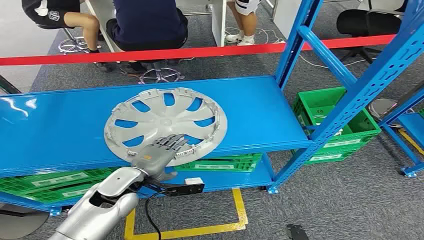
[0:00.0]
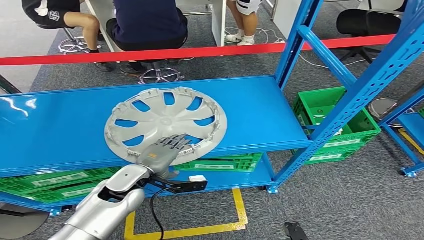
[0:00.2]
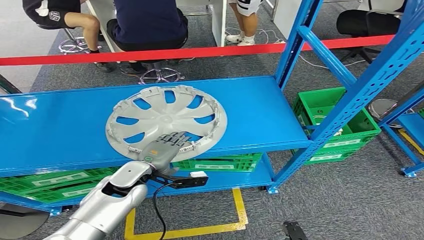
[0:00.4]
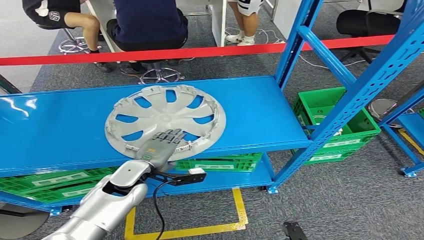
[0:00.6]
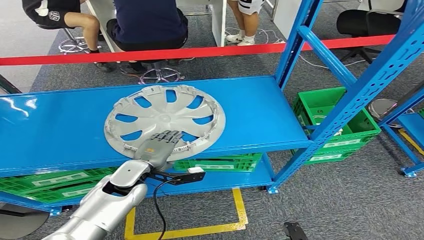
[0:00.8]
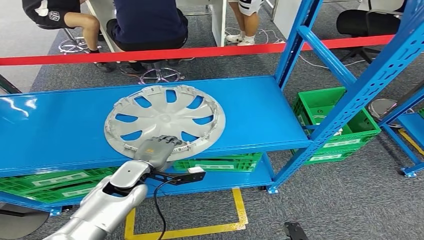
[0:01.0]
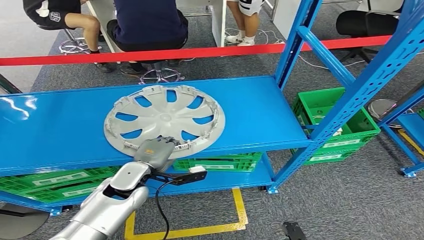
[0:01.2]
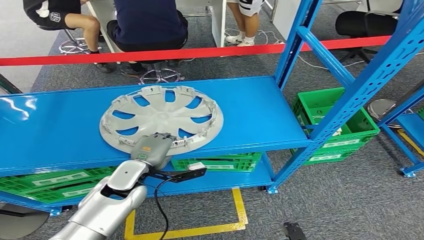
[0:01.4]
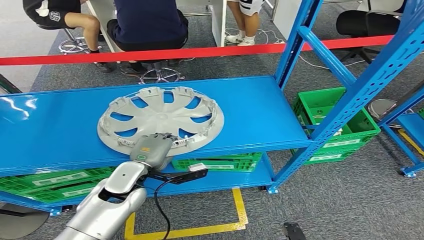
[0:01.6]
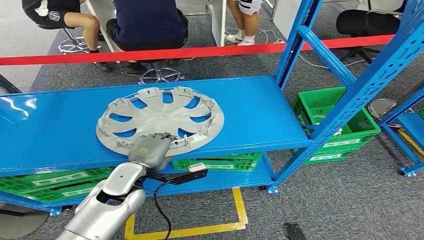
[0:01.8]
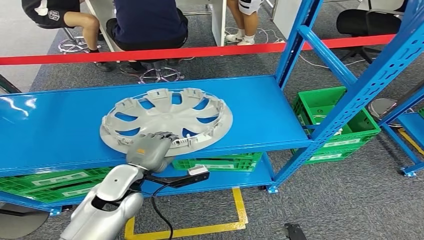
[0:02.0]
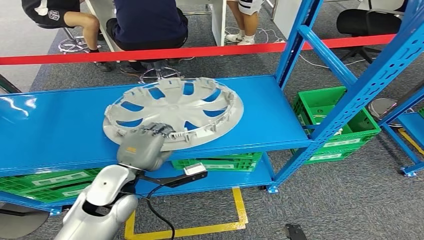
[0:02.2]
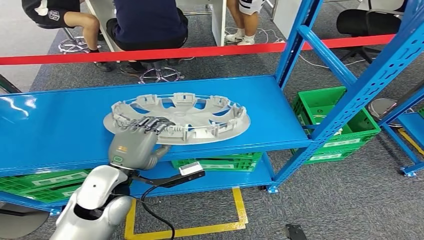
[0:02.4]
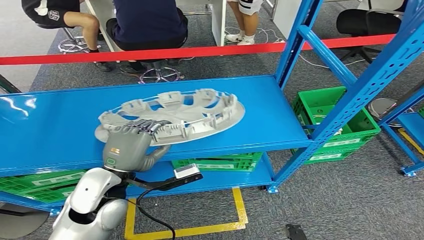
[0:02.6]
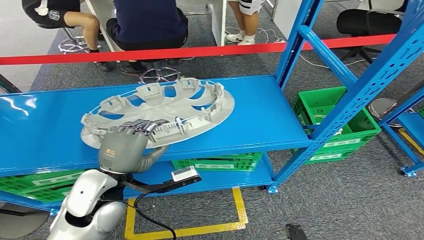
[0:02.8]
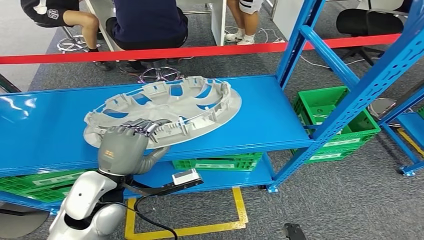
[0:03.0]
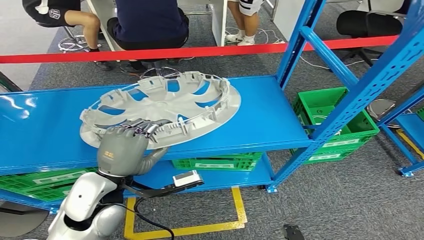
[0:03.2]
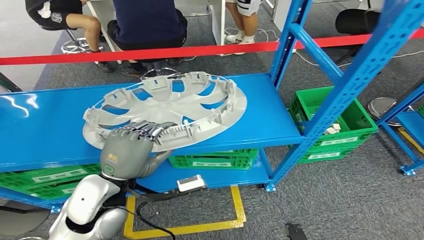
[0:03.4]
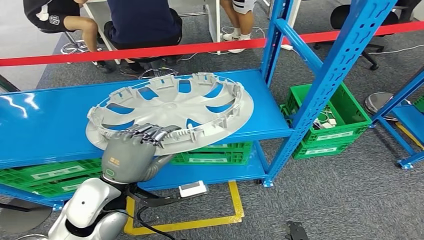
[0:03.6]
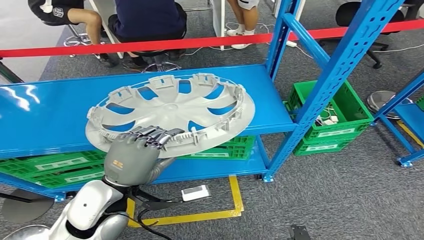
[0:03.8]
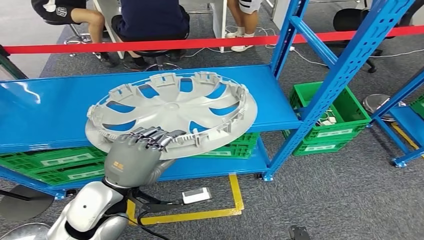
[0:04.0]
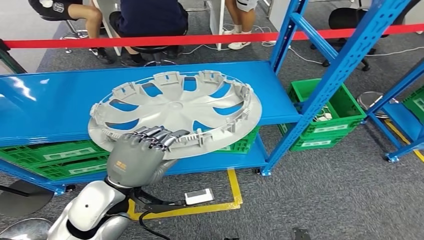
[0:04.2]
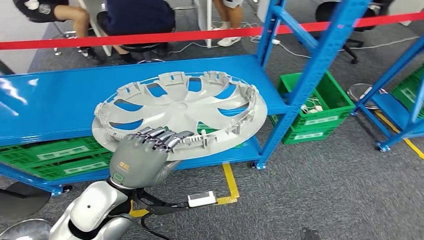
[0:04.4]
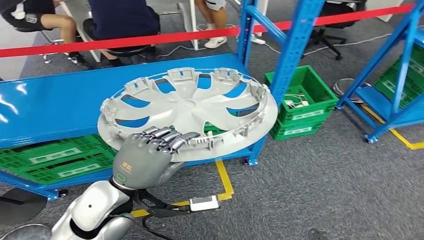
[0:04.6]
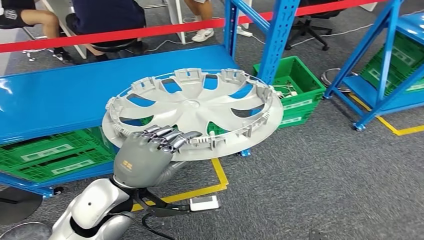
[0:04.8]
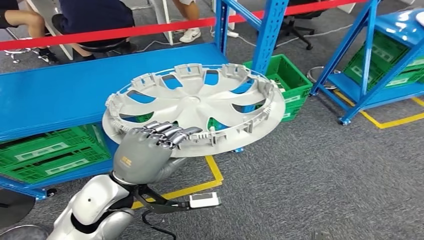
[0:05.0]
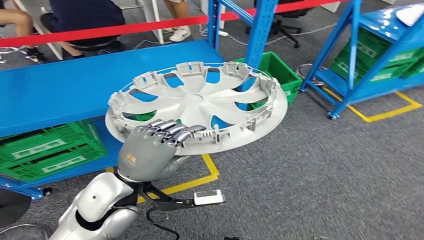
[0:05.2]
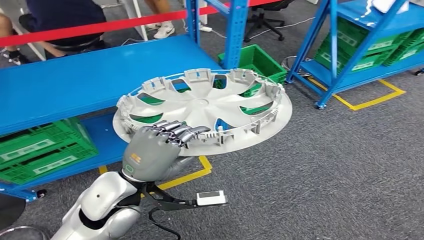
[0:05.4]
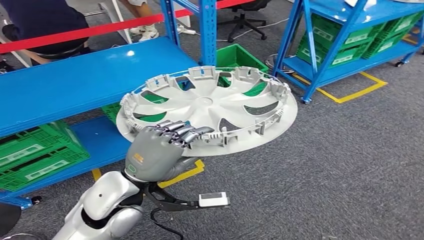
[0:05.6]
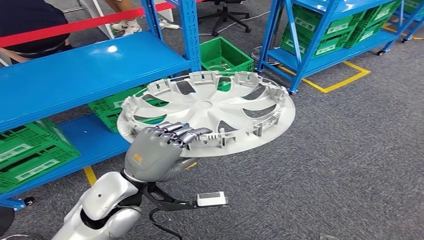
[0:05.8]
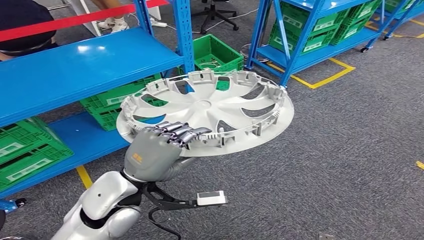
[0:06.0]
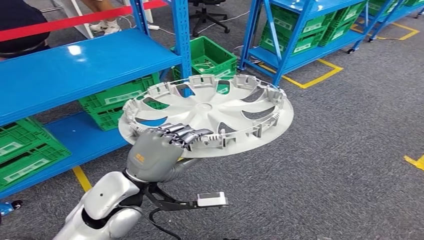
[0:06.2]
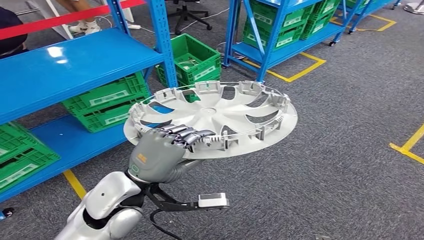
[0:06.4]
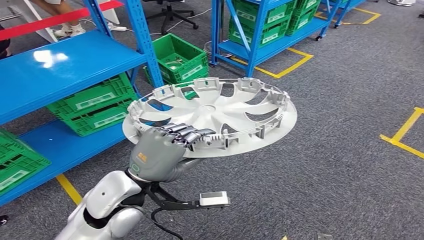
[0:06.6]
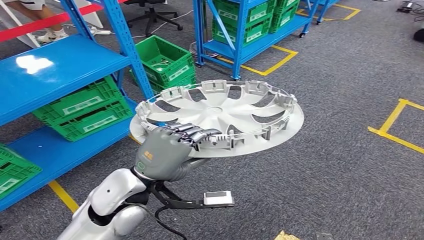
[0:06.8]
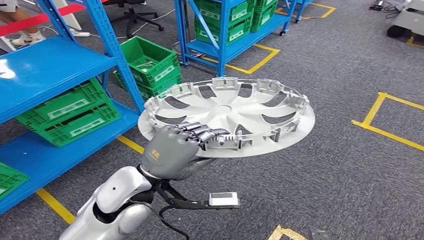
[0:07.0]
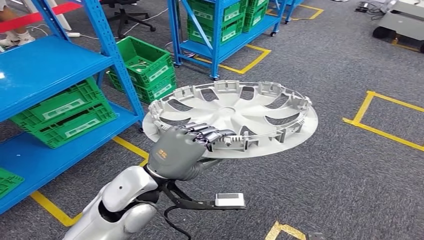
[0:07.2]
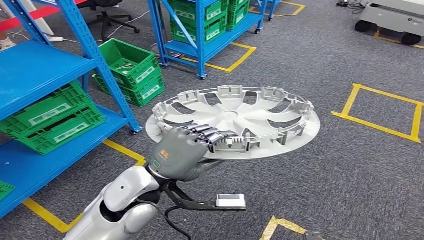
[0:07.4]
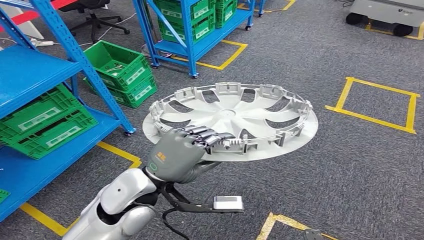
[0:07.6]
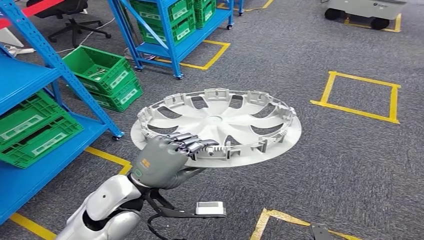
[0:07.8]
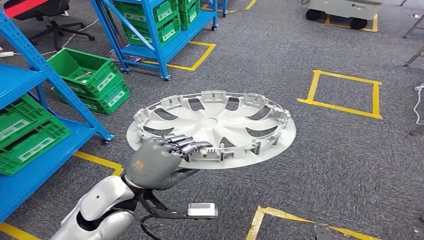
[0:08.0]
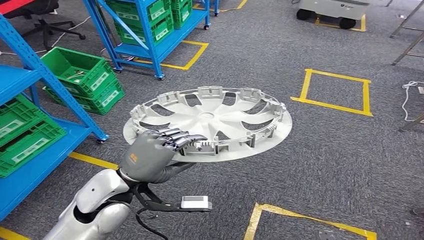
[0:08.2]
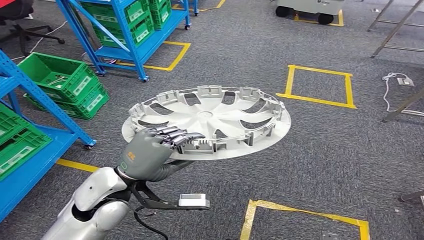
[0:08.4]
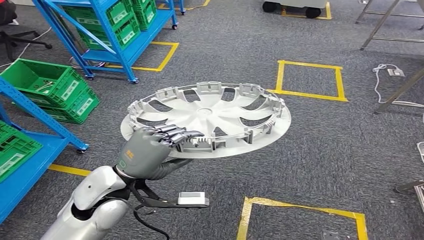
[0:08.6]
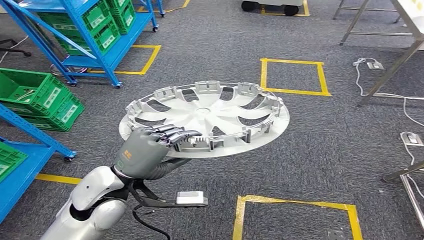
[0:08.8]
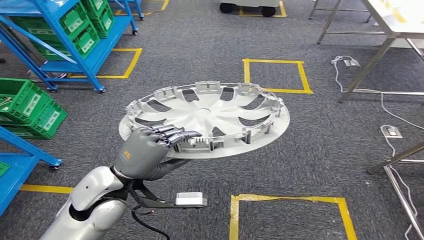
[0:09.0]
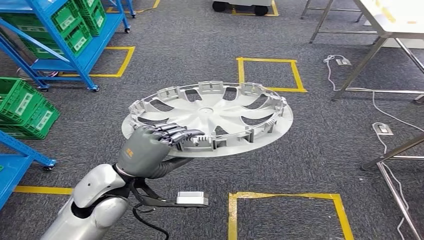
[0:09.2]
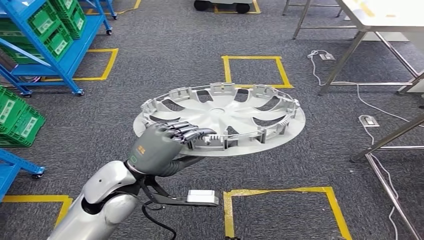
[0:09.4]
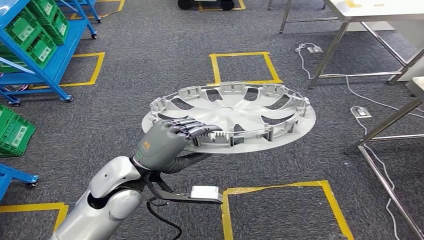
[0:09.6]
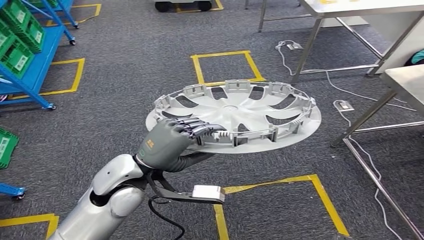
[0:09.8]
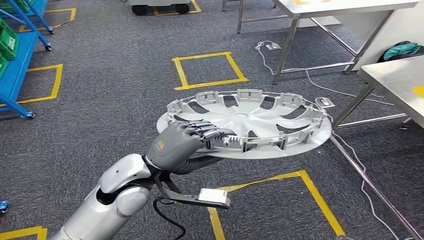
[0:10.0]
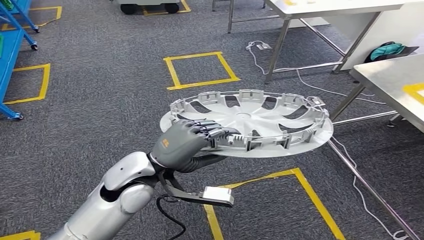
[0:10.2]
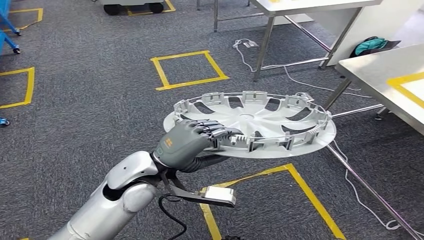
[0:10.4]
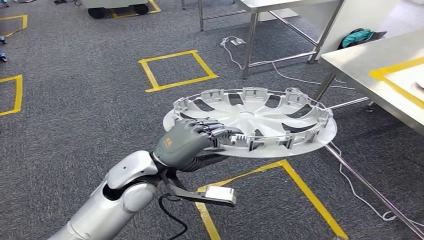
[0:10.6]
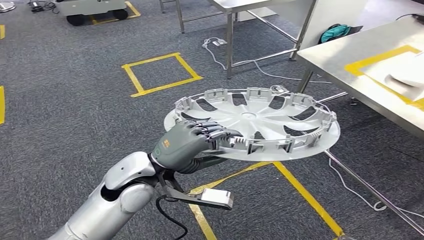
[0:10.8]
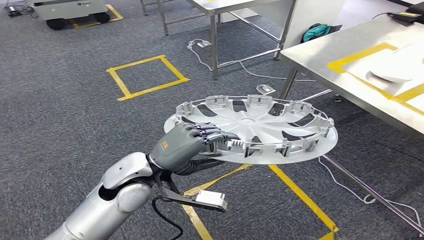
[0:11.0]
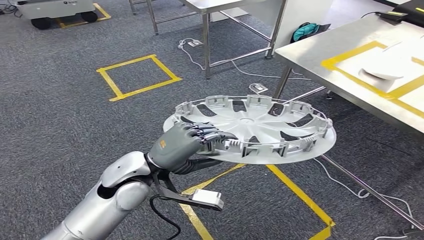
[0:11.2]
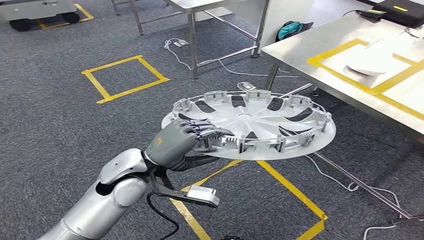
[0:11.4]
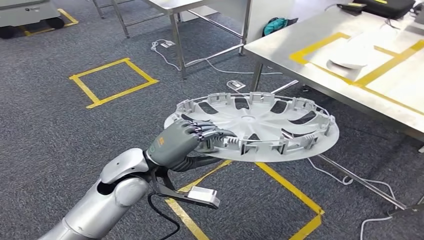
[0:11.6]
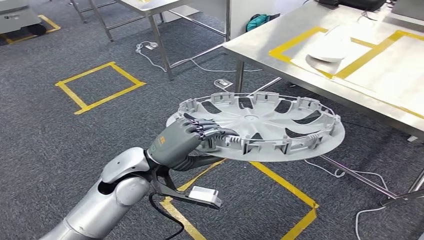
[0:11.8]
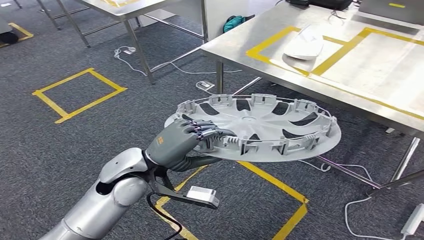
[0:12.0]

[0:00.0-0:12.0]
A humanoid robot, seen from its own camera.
Step, 0:00.0 to 0:04.0: Pick up the small component from the shelf.
0:01.6 to 0:03.0: The left hand goes approximately 10 cm upward and backward.

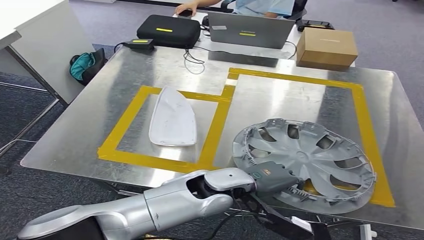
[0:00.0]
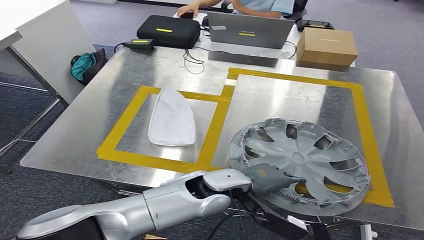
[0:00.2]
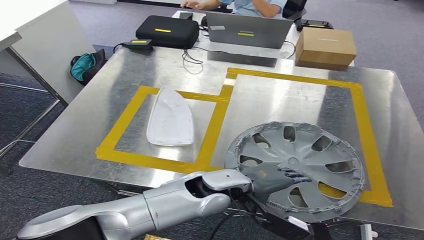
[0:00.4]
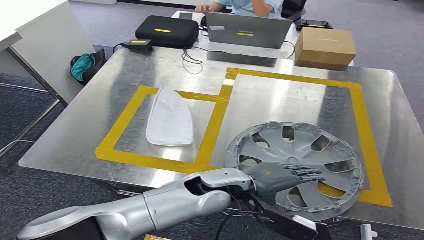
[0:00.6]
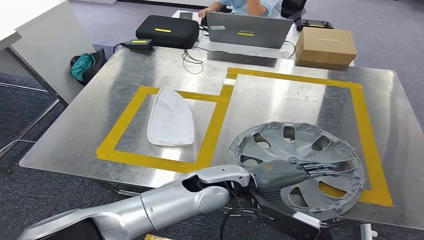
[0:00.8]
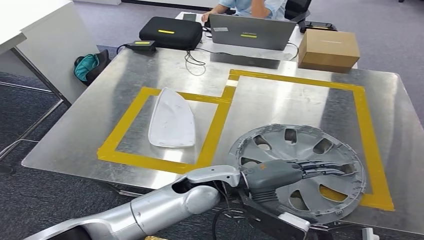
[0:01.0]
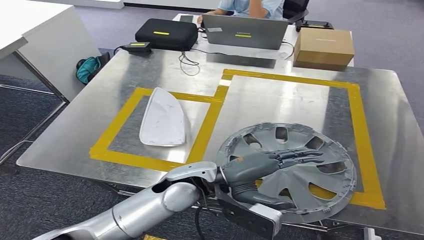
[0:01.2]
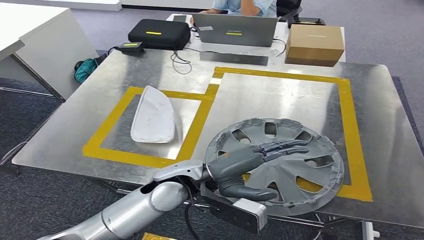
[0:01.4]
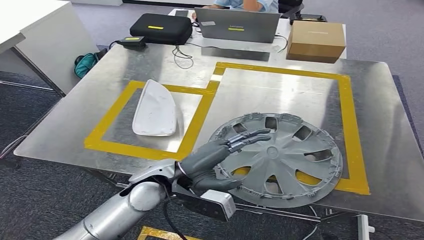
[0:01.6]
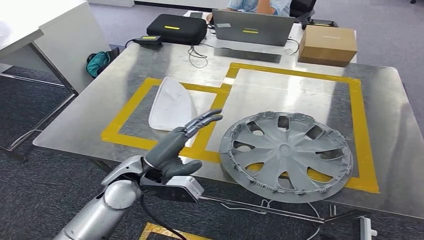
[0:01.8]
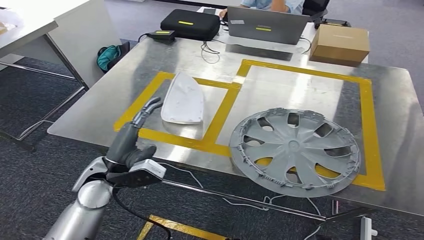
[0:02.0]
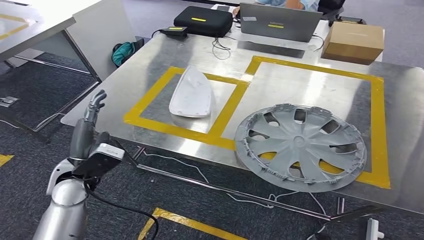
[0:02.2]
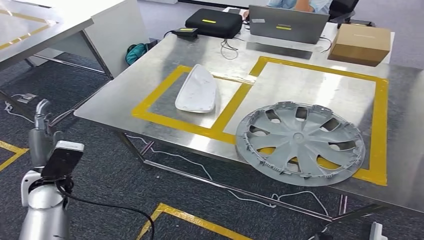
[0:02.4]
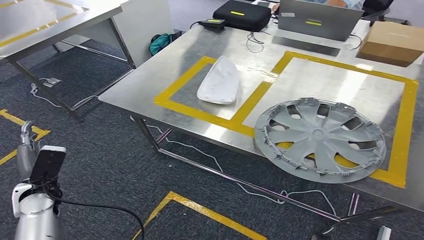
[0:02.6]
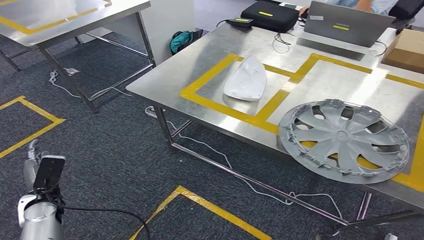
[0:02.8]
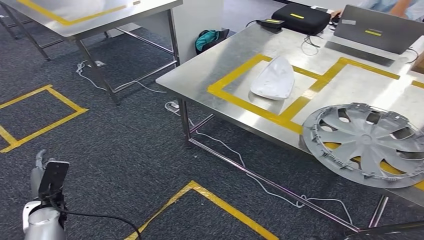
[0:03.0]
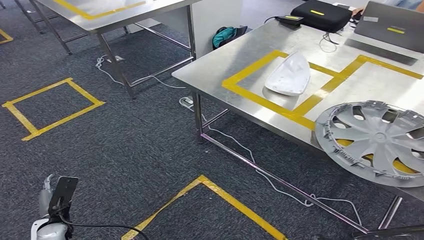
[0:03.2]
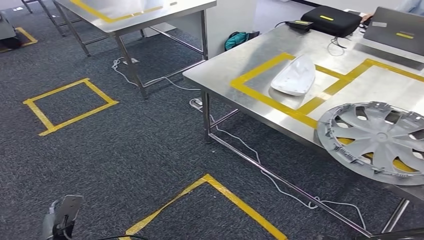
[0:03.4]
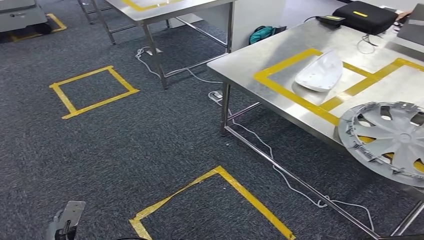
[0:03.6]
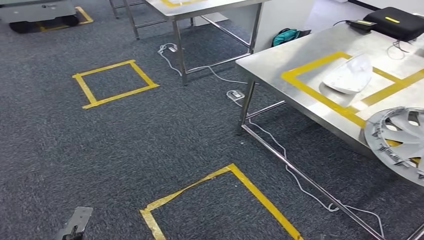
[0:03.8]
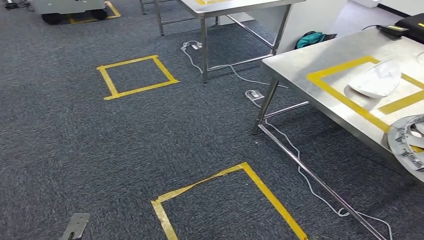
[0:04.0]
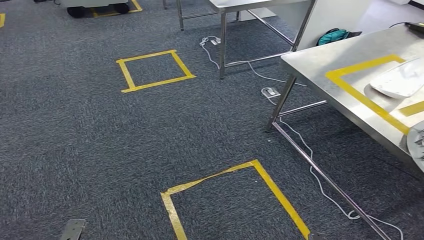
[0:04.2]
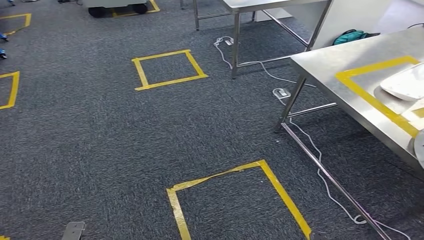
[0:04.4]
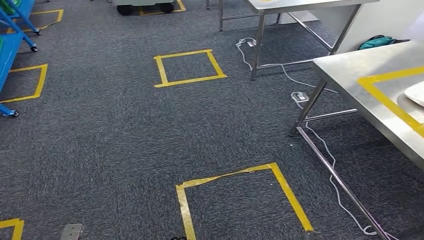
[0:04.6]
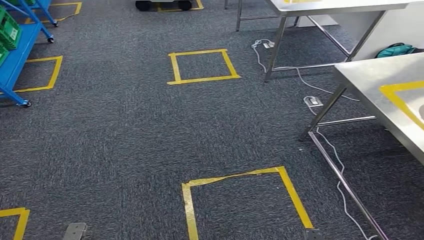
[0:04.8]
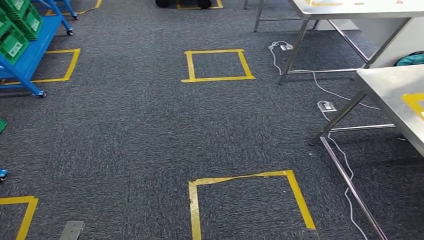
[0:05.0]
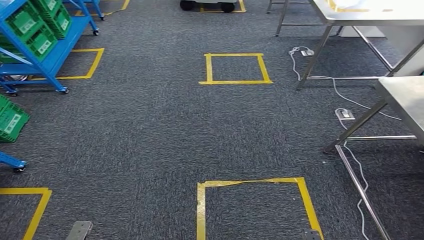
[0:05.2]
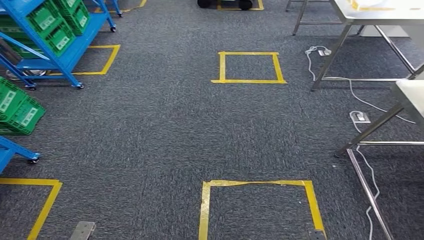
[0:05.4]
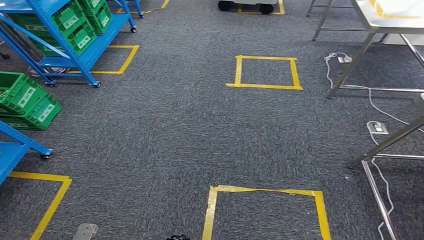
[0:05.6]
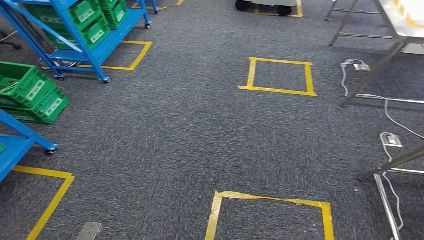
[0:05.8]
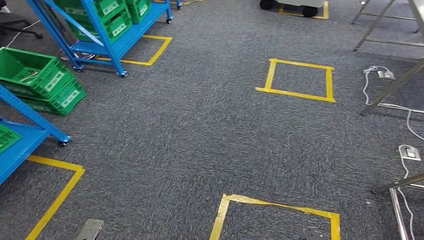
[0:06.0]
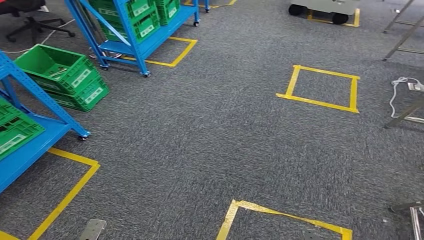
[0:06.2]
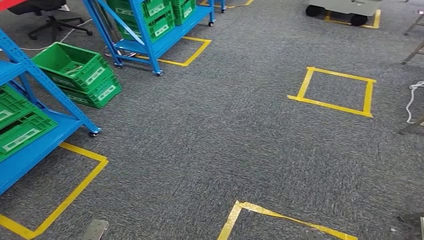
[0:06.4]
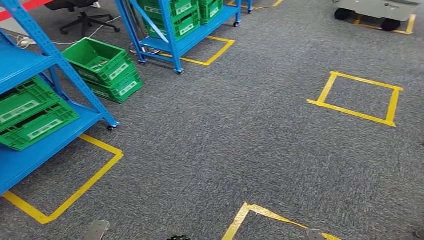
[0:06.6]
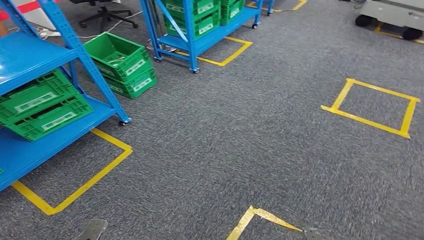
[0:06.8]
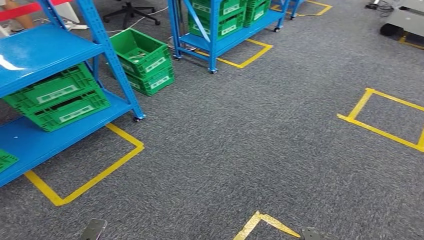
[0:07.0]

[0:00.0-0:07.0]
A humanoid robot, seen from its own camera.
Step, 0:00.0 to 0:03.0: Insert the small component into the corresponding slot on the workbench.
